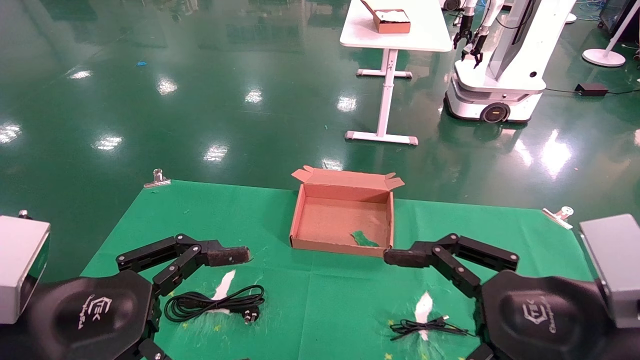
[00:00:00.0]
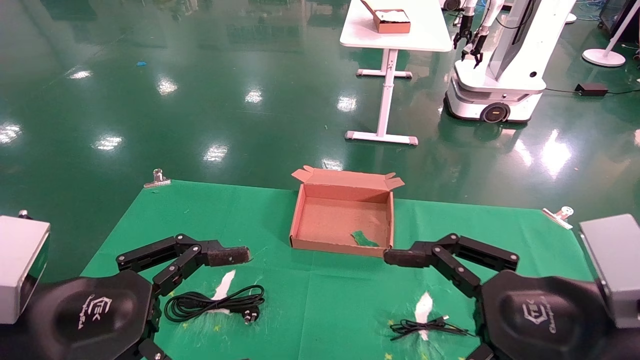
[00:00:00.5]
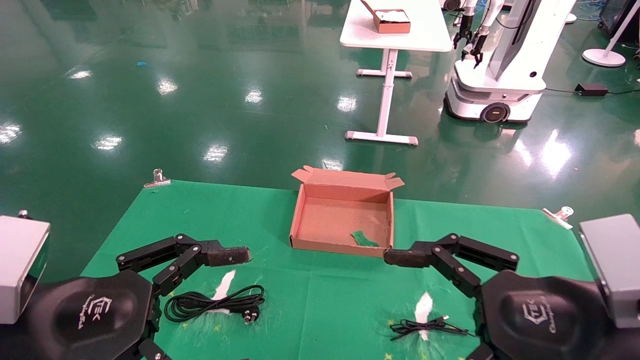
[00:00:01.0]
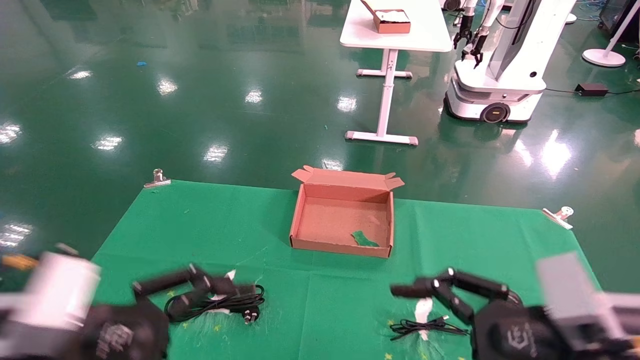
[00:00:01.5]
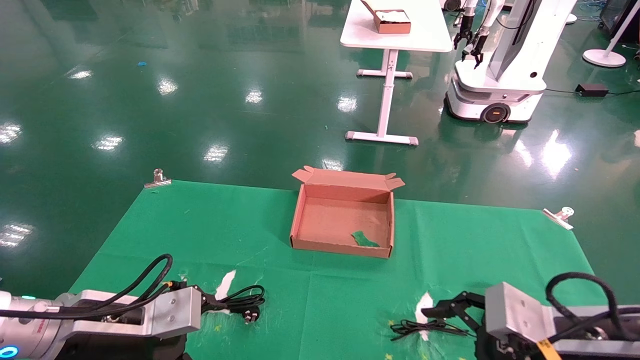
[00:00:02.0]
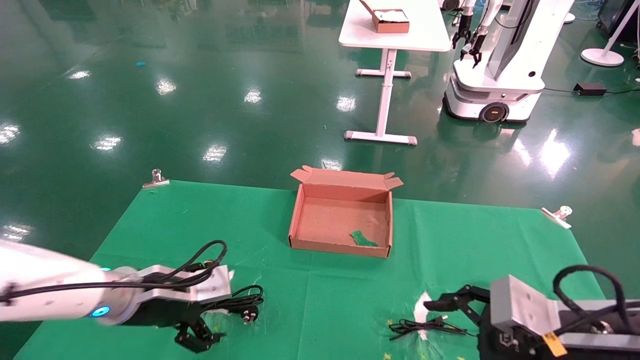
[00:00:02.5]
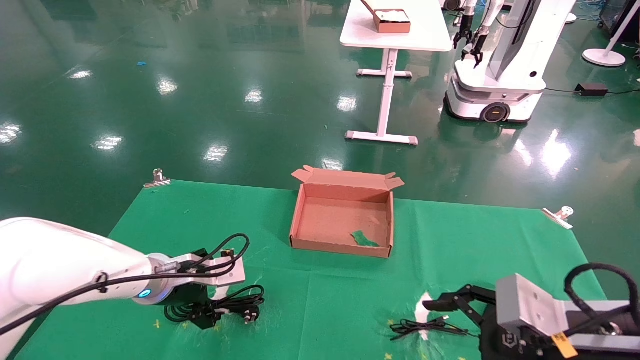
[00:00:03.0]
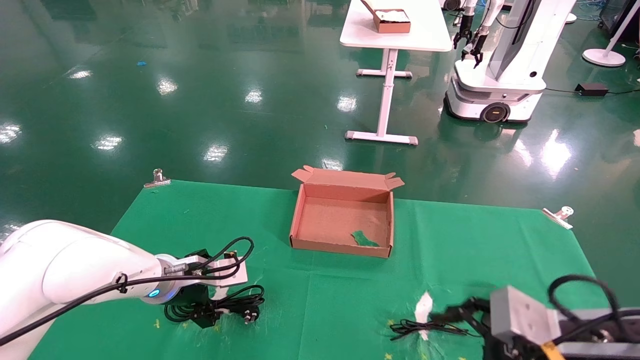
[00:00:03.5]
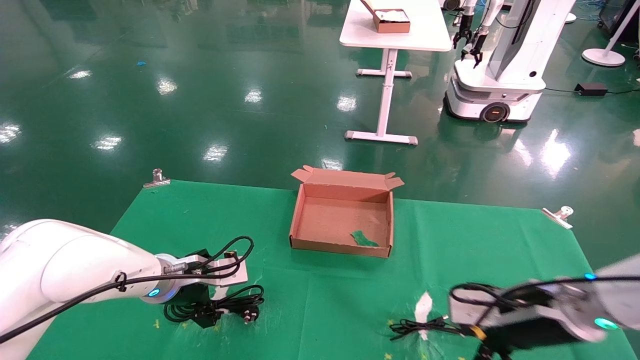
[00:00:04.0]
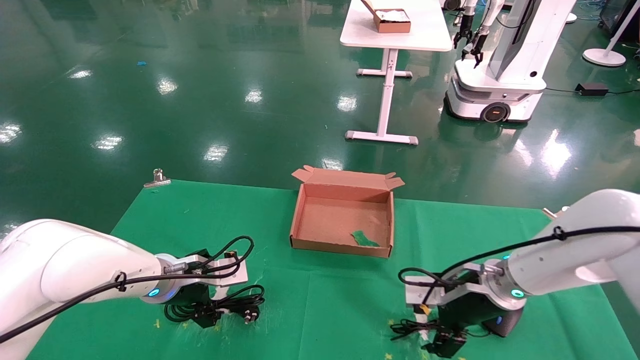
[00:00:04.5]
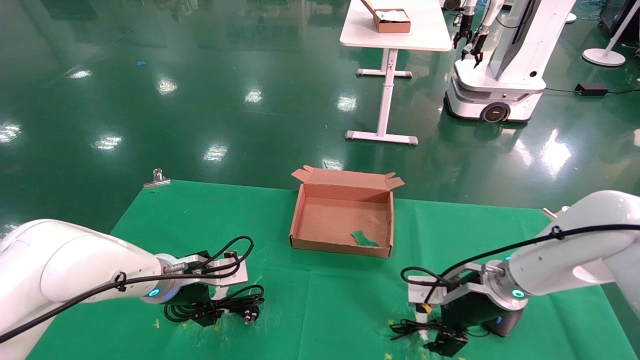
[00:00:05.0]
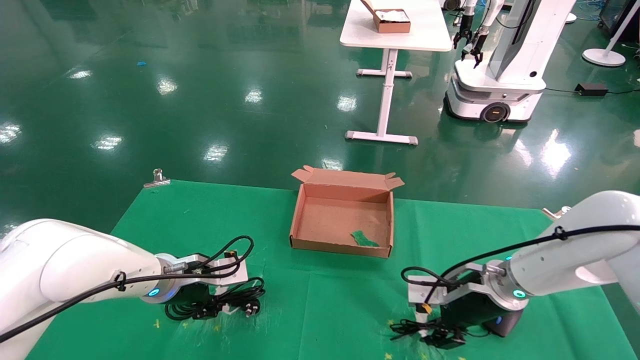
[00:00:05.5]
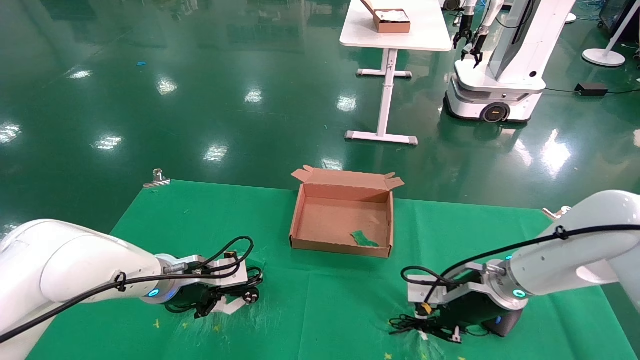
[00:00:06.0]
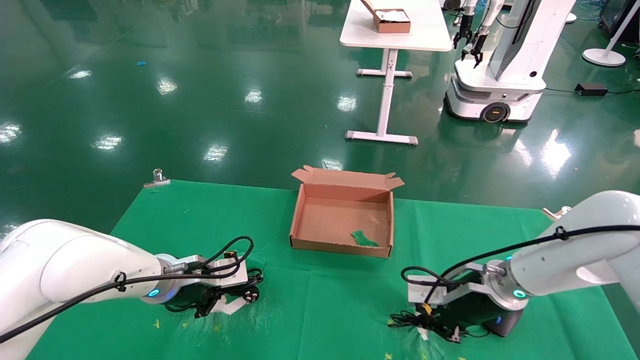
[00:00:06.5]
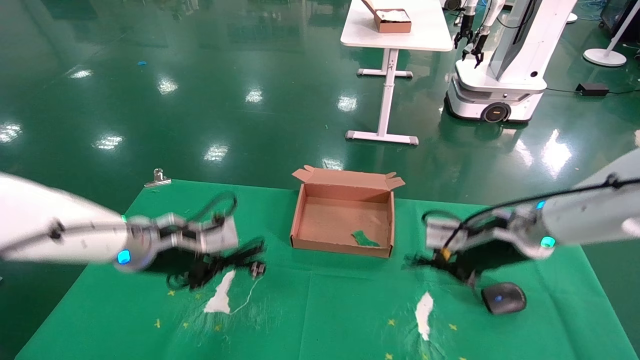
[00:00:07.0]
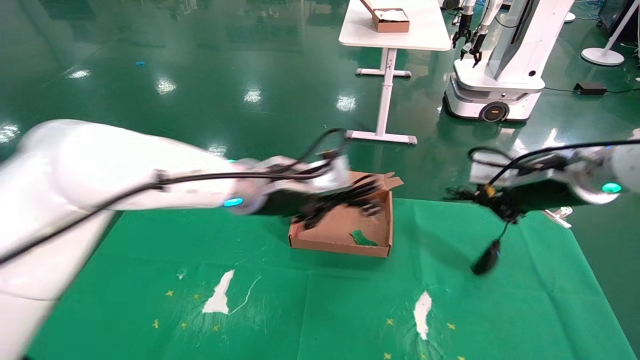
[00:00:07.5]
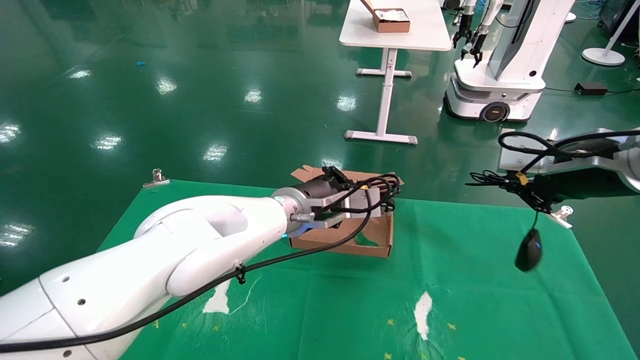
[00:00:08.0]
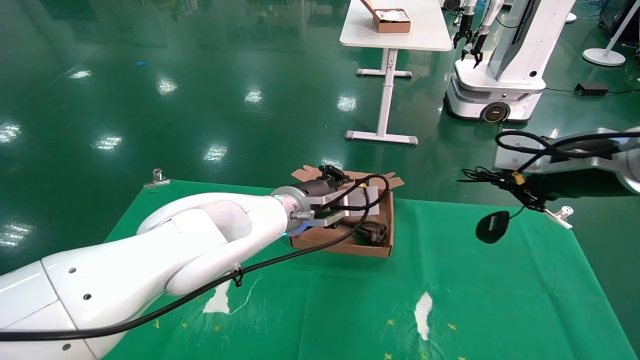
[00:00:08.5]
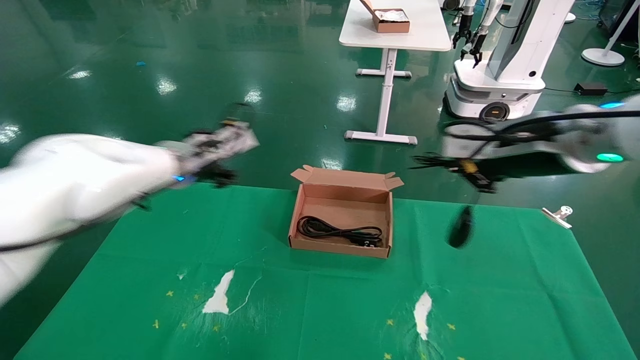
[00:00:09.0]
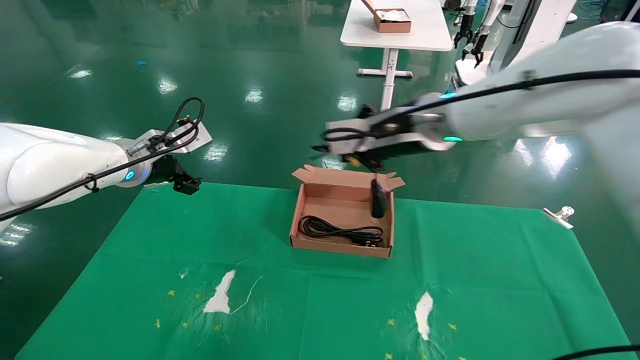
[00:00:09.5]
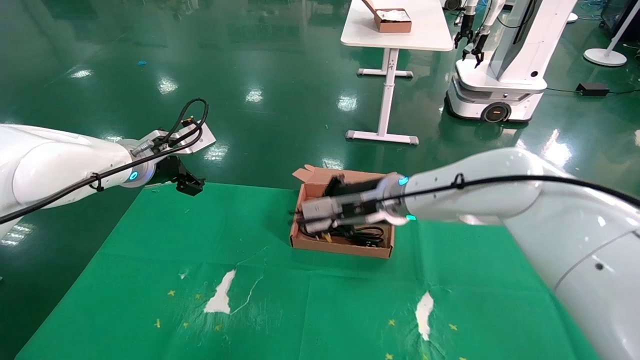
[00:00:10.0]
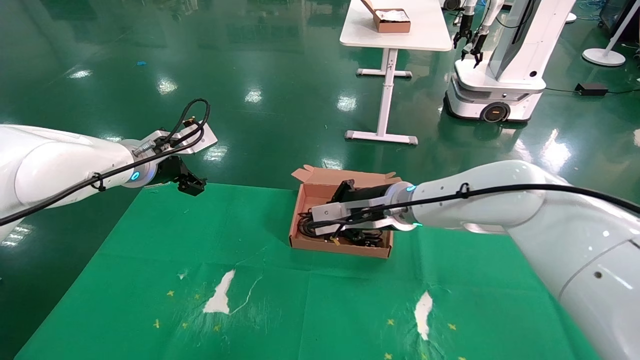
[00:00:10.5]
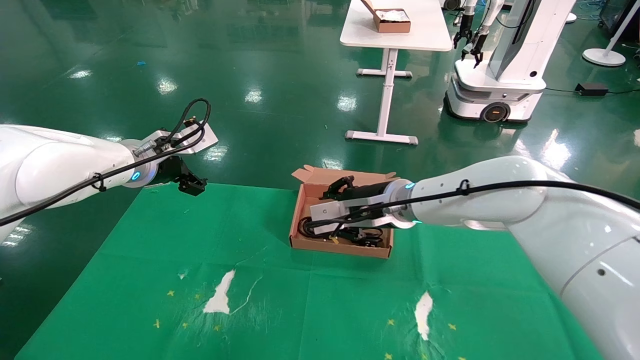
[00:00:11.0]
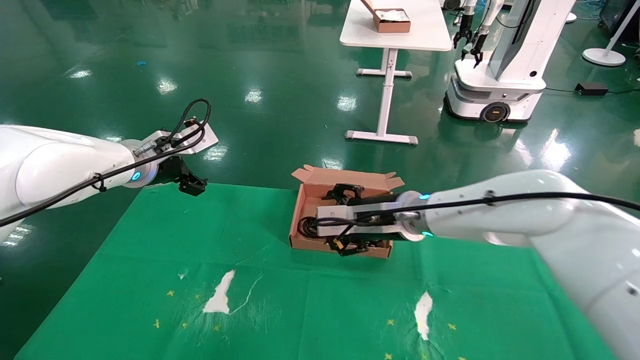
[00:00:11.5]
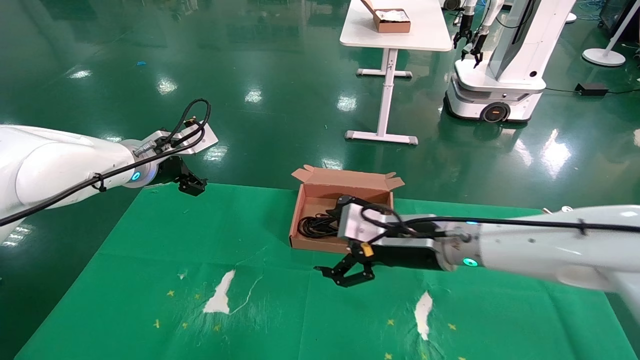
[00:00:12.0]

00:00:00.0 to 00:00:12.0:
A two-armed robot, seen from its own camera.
Step, 00:00:02.0 to 00:00:07.5: Grab and lift both the mouse and power cord from the accessory packaging area at the same time.
Step, 00:00:08.0 to 00:00:10.5: Place the mouse and power cord into the box.
00:00:00.0 to 00:00:02.0: The right gripper moves downward, some 5 cm; the left gripper heads forward and downward, covering about 10 cm.
00:00:02.0 to 00:00:04.0: The two grippers go some 10 cm forward.
00:00:04.0 to 00:00:06.0: The right gripper shifts about 5 cm forward, and closes; the left gripper closes its fingers.
00:00:06.0 to 00:00:08.0: The right gripper travels upward and to the right by some 20 cm. The left gripper goes approximately 20 cm to the right and upward.
00:00:08.0 to 00:00:10.0: The left gripper heads to the left, covering roughly 25 cm, and opens; the right gripper travels to the left and forward by about 25 cm.
00:00:10.0 to 00:00:12.0: The right gripper travels backward, to the right and downward by about 10 cm, and opens.

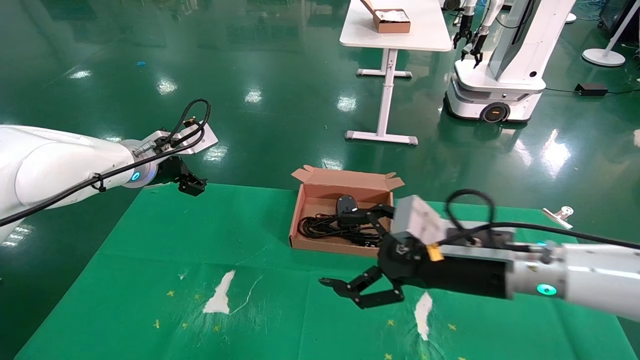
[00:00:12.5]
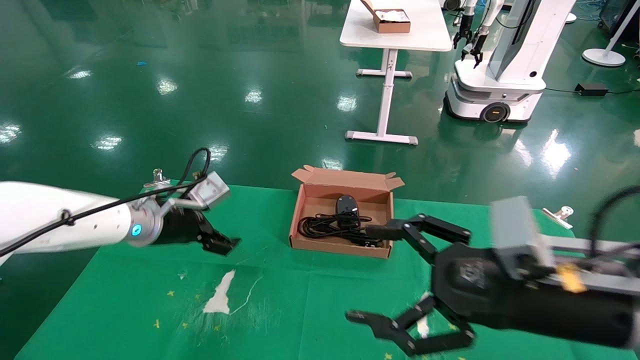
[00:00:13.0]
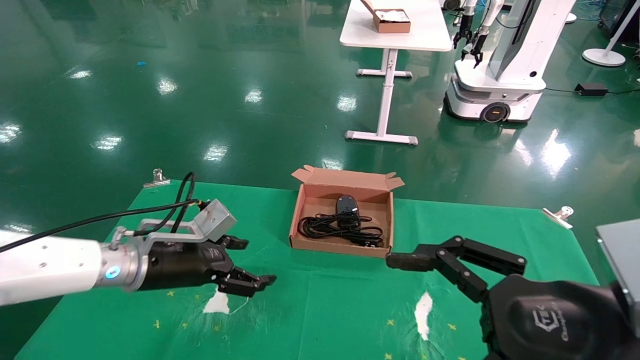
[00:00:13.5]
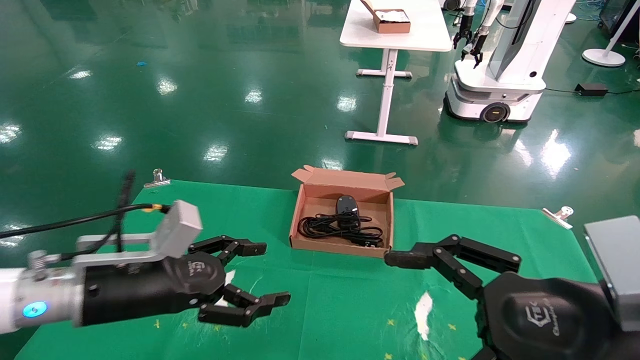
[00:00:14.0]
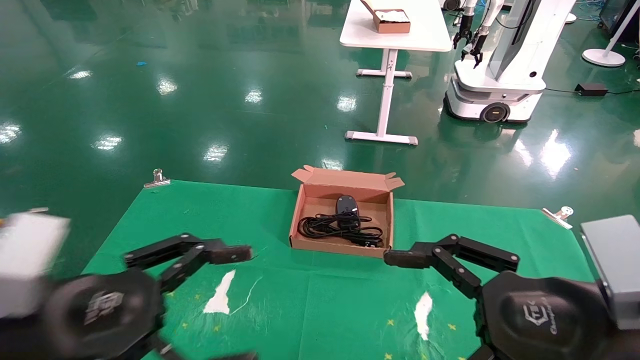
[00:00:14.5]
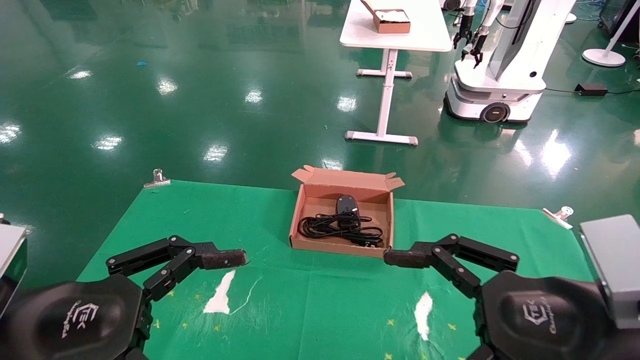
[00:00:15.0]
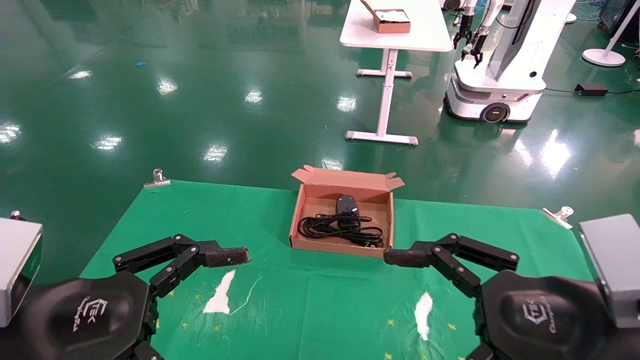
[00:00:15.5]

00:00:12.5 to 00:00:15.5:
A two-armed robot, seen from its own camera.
00:00:12.5 to 00:00:14.0: The right gripper moves backward and to the right, roughly 15 cm; the left gripper moves backward and downward, approximately 20 cm.
00:00:14.0 to 00:00:15.5: The left gripper goes roughly 10 cm backward.
